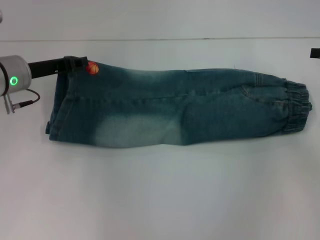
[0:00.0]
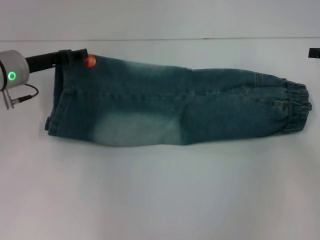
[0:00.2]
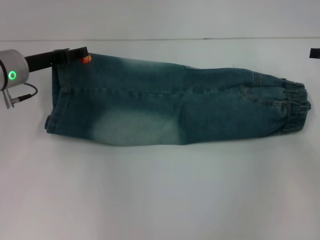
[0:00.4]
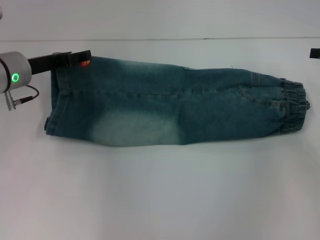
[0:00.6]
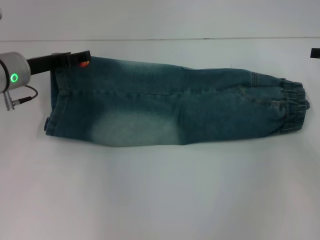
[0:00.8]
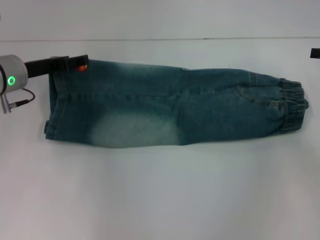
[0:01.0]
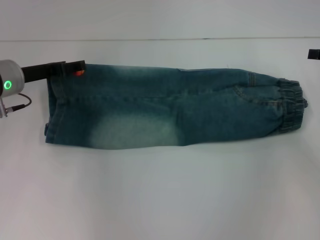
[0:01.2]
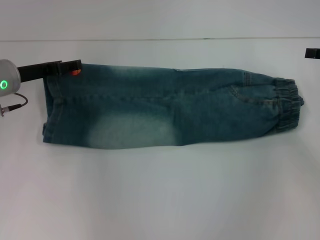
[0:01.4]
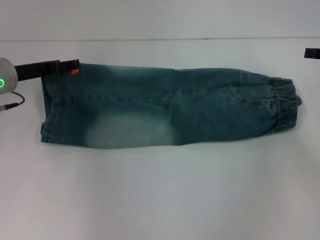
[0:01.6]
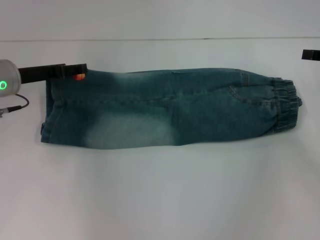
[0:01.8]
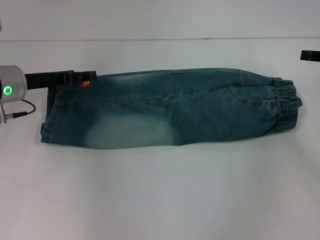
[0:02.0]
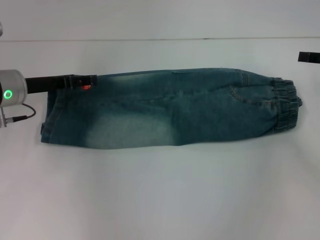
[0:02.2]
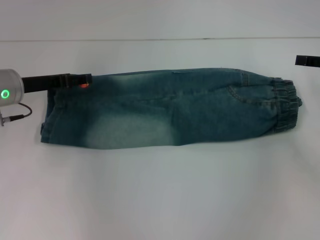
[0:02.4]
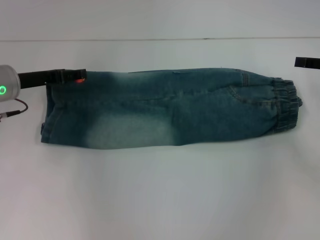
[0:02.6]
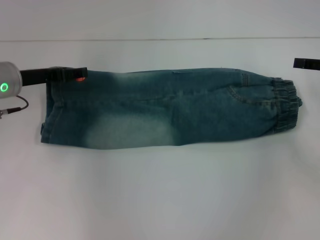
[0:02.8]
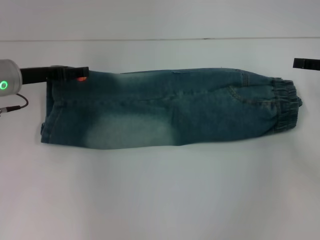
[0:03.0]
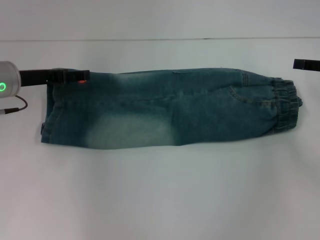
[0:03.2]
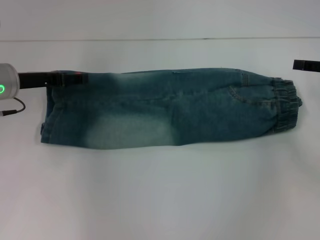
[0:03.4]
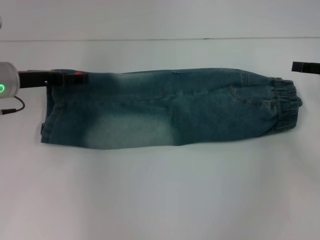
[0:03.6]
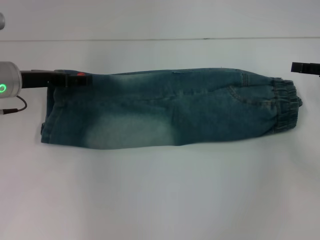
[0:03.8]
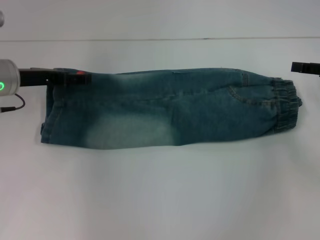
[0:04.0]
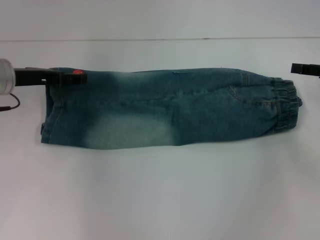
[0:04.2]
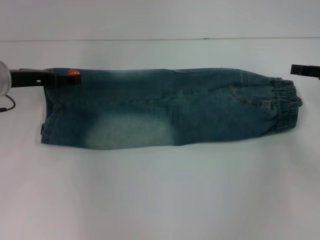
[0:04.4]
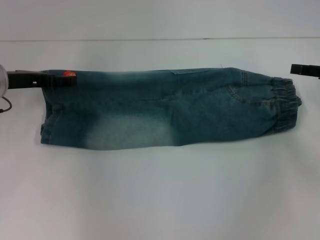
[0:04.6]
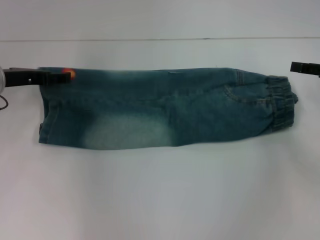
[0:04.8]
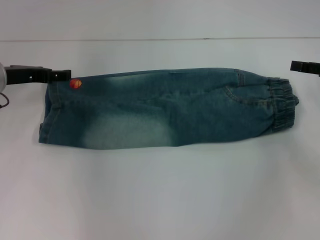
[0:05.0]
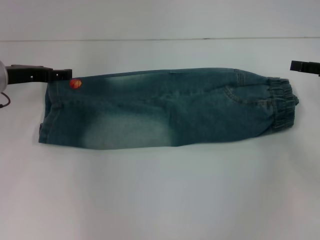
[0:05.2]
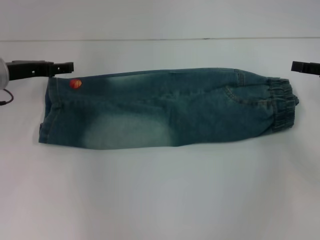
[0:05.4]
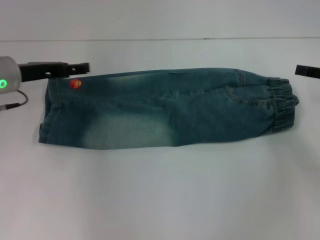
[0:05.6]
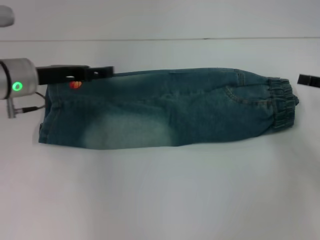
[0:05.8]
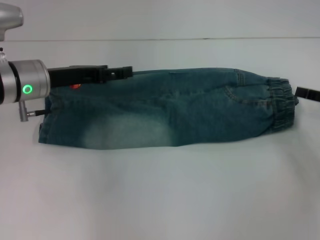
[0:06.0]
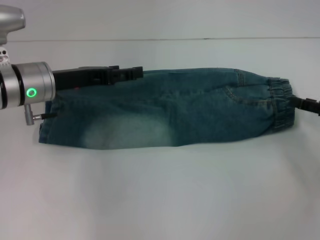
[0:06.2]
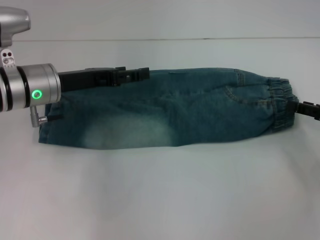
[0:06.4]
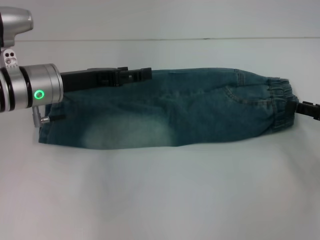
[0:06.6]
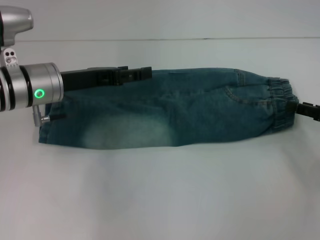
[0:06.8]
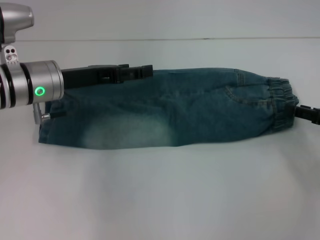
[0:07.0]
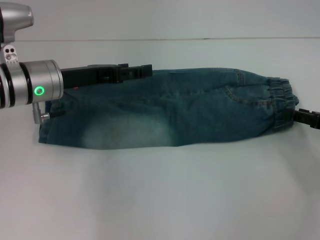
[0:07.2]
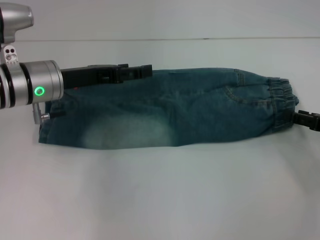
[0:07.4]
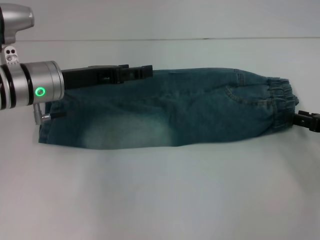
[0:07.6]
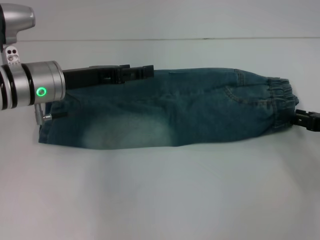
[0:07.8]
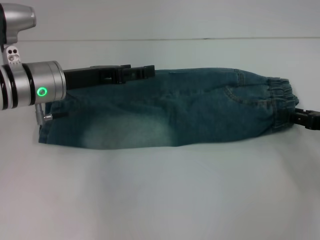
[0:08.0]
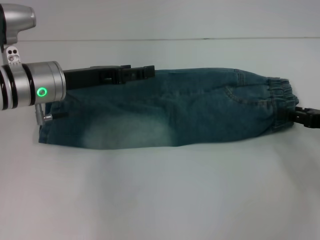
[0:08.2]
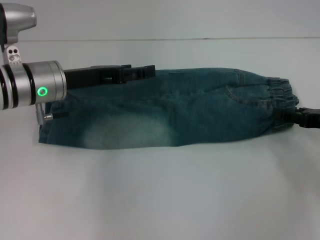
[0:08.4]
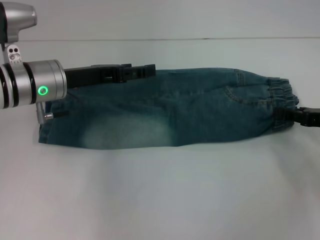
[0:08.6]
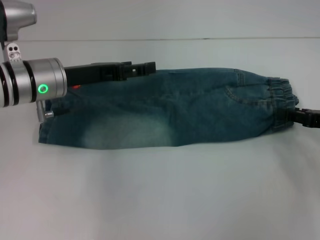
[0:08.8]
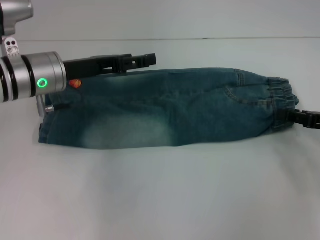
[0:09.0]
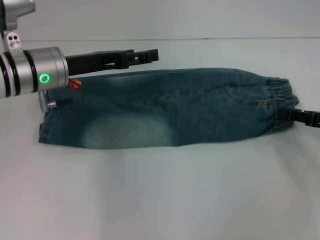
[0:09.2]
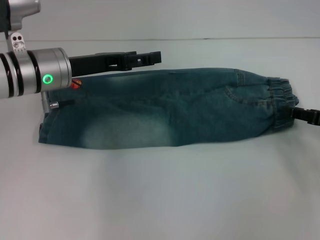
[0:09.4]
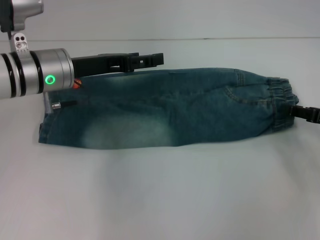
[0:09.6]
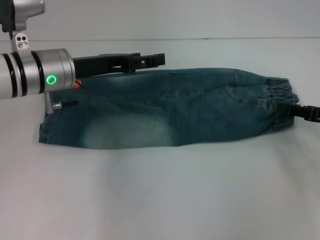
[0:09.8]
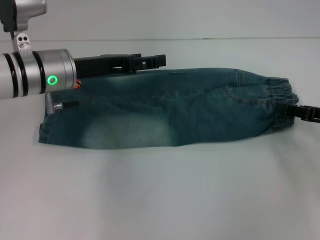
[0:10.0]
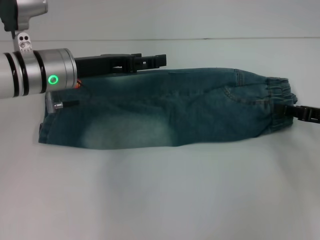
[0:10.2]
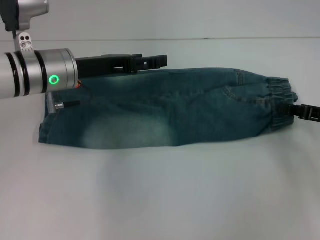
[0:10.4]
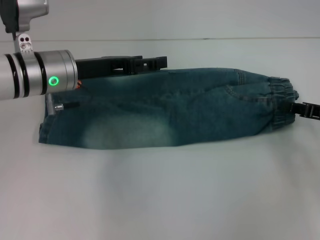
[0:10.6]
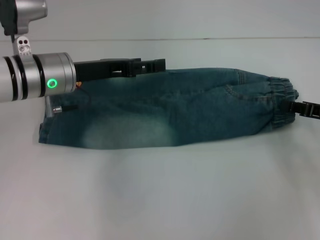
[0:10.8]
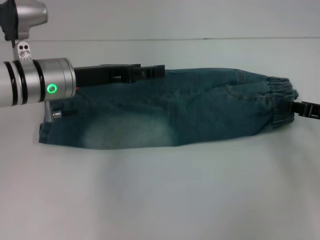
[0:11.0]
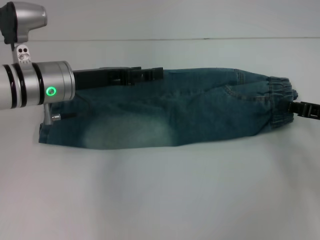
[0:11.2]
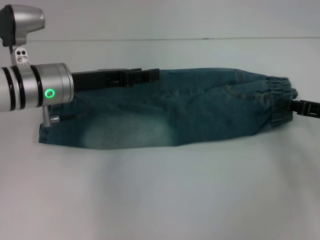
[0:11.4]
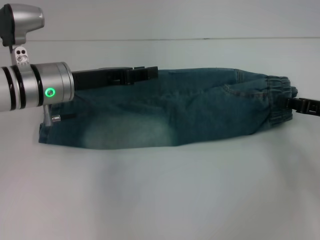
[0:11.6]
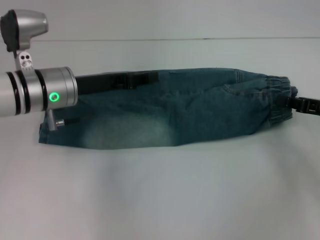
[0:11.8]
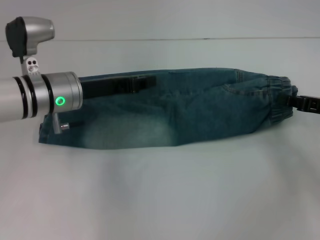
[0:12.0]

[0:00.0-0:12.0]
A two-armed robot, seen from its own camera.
Step, 0:00.0 to 0:05.0: Fold upward with your right hand.
Step, 0:05.2 to 0:10.6: Grab the waistband with your right hand.
0:00.0 to 0:01.6: The right gripper opens. Meanwhile the left gripper opens up.
0:01.6 to 0:04.4: There are only small adjustments of the grippers.
0:04.4 to 0:06.0: The right gripper shifts by about 5 cm, while the left gripper goes about 5 cm to the right.
0:06.0 to 0:10.4: The grippers make only small movements.
0:10.4 to 0:12.0: The left gripper closes up; the right gripper closes up.

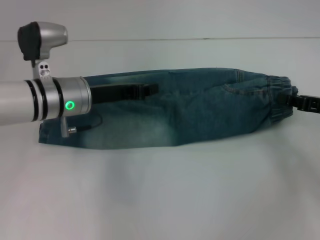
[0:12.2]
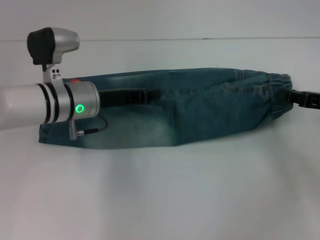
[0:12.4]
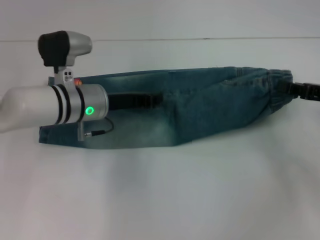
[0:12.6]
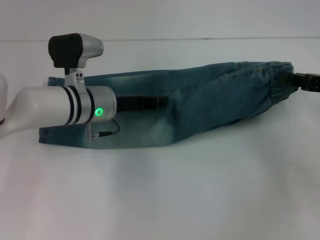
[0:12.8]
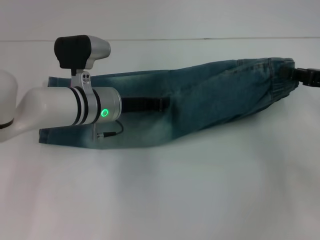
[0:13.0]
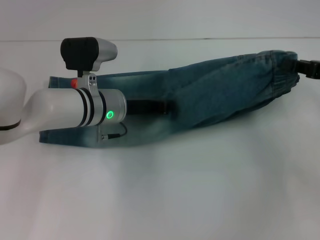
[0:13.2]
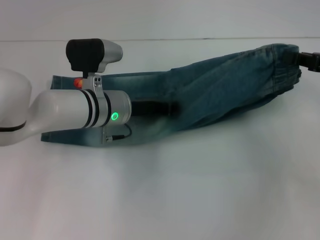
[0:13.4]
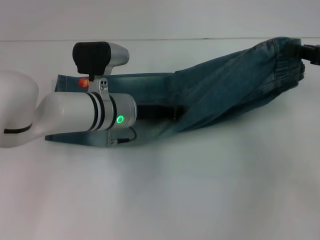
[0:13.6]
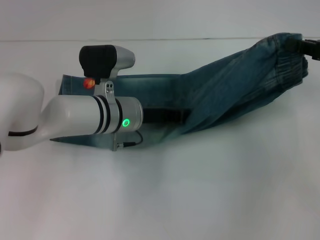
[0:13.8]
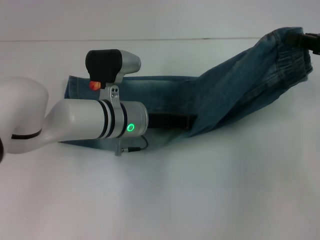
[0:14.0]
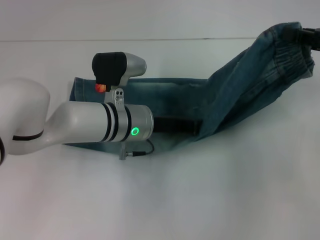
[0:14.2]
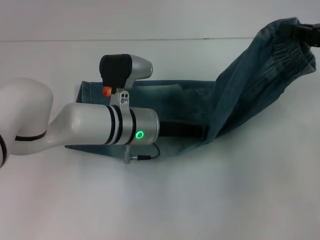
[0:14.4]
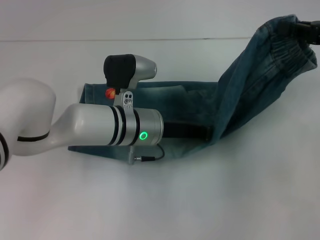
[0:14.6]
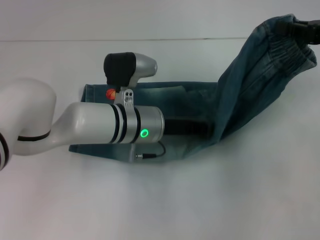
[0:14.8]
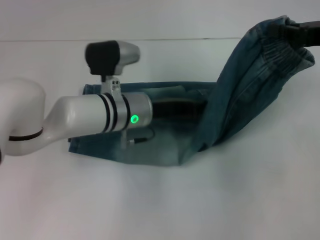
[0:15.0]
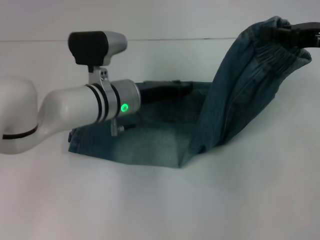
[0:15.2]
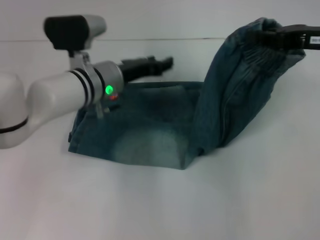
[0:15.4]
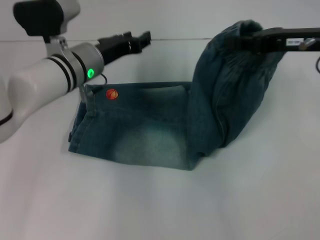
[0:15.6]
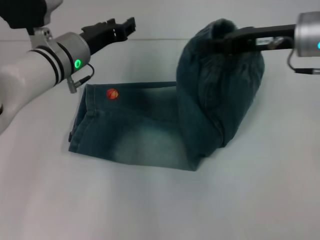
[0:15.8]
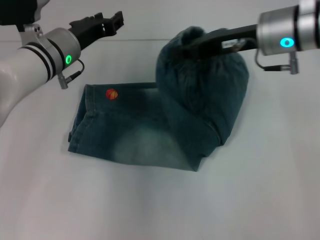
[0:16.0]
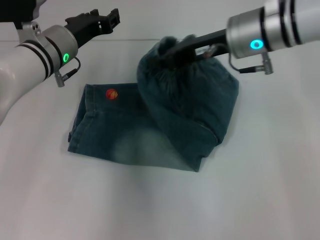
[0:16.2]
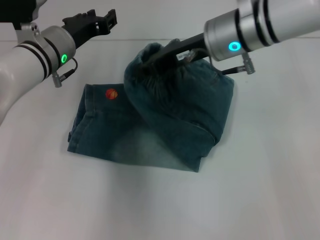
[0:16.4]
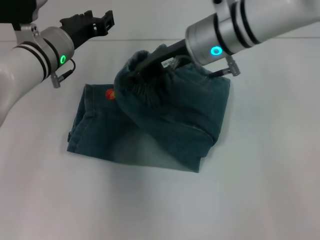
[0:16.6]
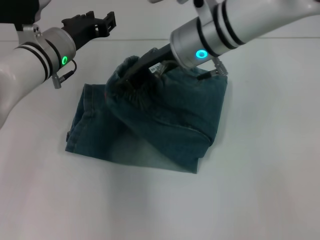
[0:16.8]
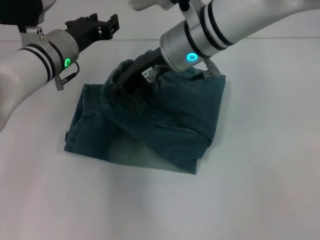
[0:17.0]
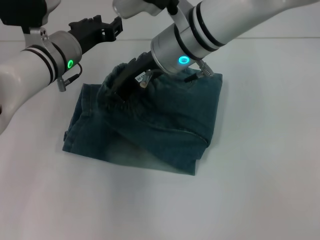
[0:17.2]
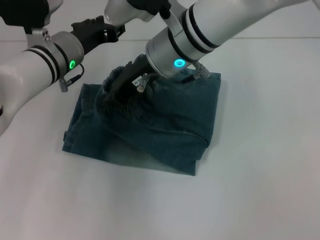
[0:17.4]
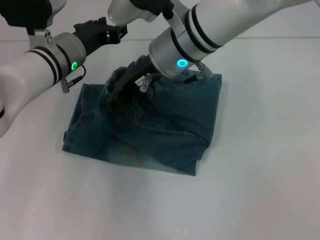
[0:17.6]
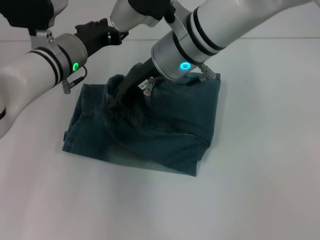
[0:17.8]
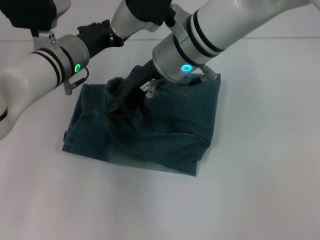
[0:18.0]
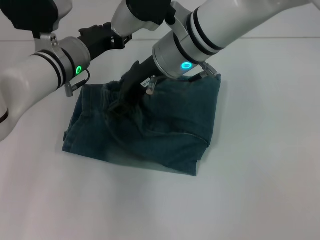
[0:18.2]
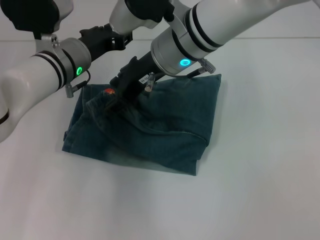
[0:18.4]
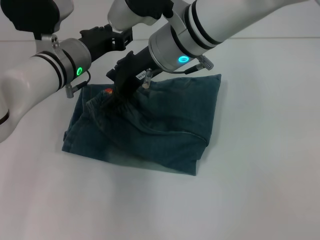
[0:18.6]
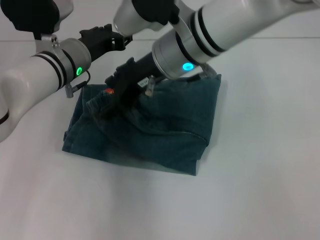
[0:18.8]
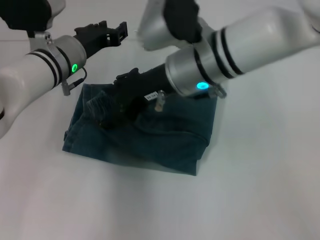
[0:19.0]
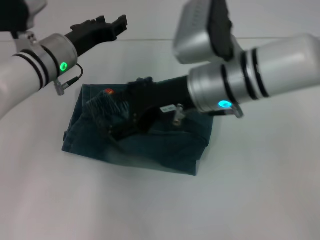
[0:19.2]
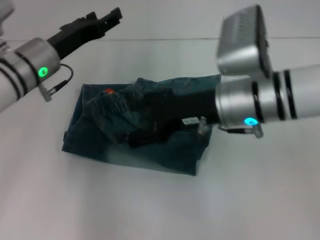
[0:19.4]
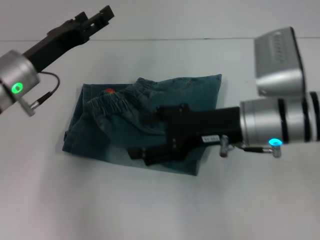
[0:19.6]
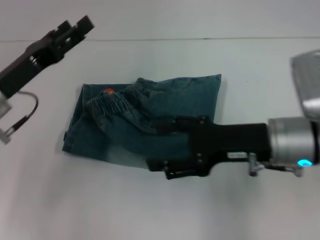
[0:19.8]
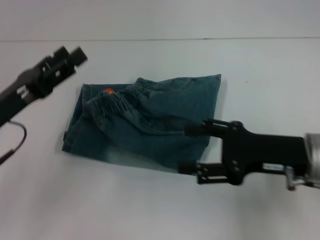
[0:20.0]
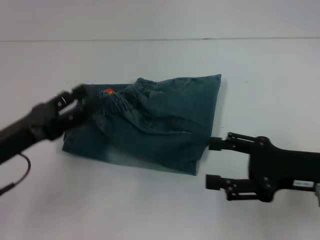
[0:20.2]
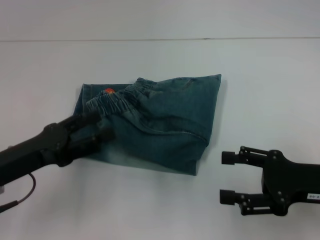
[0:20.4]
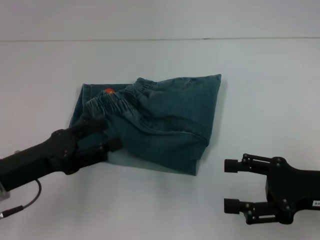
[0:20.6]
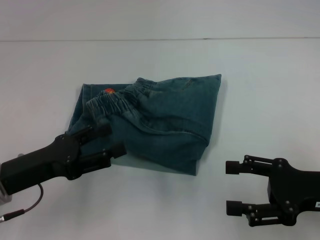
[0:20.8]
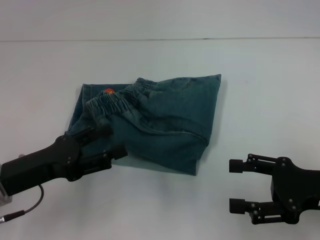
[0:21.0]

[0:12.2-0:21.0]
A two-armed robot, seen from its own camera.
Step, 0:12.2 to 0:15.0: Press the middle of the pants with your left hand.
Step, 0:15.2 to 0:18.8: Fold to the left with your right hand.
0:12.2 to 0:13.6: The right gripper shifts approximately 10 cm upward. Meanwhile the left gripper shifts approximately 5 cm to the right.
0:13.6 to 0:15.2: The right gripper moves some 5 cm.
0:15.2 to 0:16.6: The left gripper travels to the left by approximately 10 cm, and opens its fingers. Meanwhile the right gripper is displaced to the left by roughly 20 cm.
0:16.6 to 0:18.0: The right gripper ends up approximately 5 cm from where it was.
0:18.0 to 0:19.6: The right gripper heads to the right and backward, covering roughly 15 cm, and opens its fingers; the left gripper goes roughly 10 cm to the left and backward, and opens its fingers.
0:19.6 to 0:21.0: The right gripper moves to the right and backward, some 15 cm, while the left gripper is displaced backward by some 15 cm.
